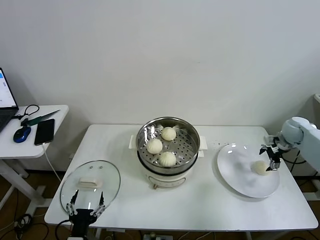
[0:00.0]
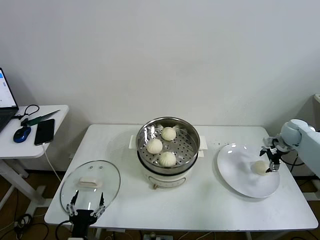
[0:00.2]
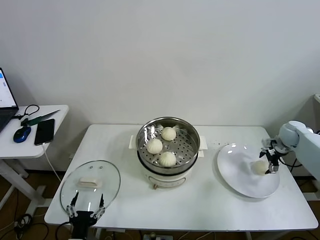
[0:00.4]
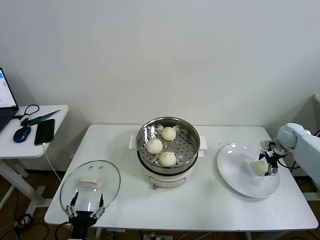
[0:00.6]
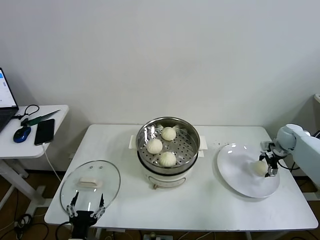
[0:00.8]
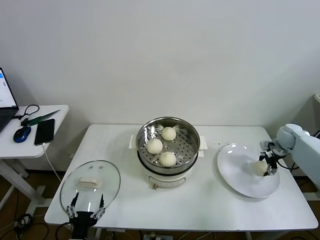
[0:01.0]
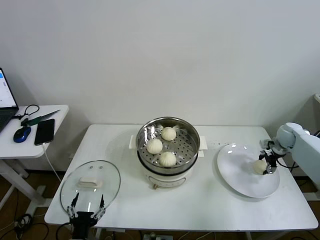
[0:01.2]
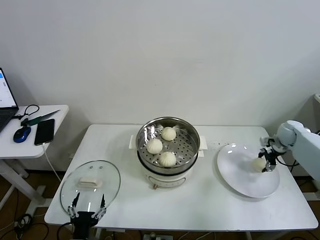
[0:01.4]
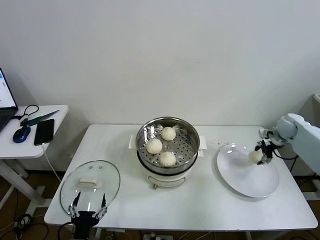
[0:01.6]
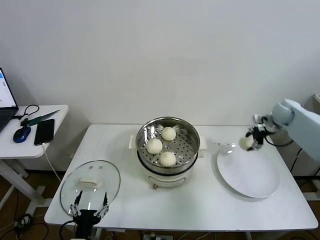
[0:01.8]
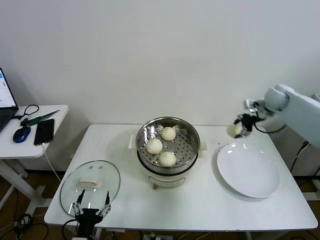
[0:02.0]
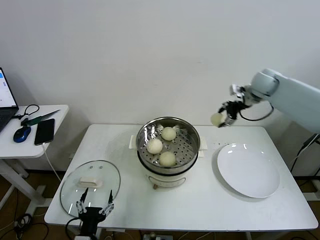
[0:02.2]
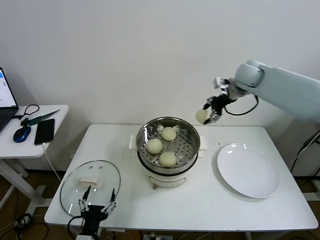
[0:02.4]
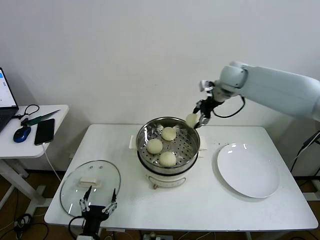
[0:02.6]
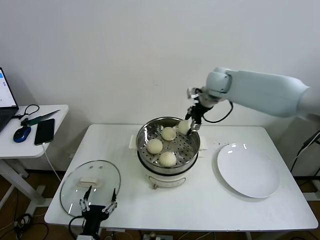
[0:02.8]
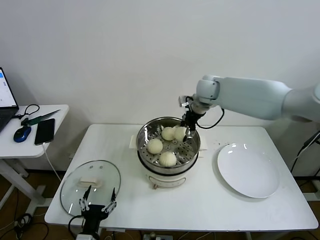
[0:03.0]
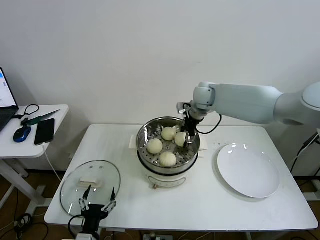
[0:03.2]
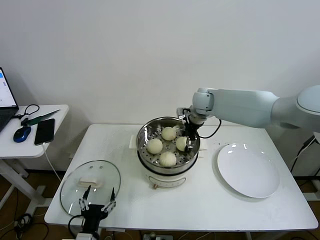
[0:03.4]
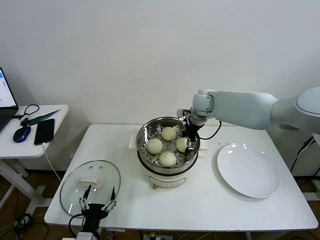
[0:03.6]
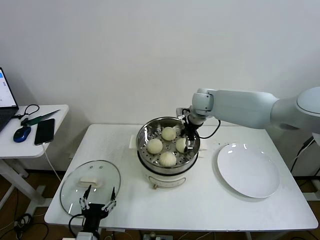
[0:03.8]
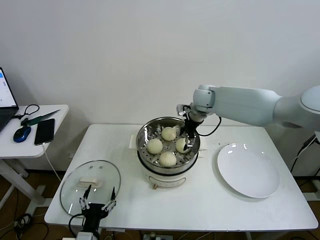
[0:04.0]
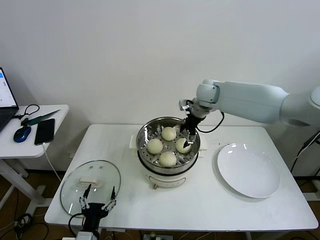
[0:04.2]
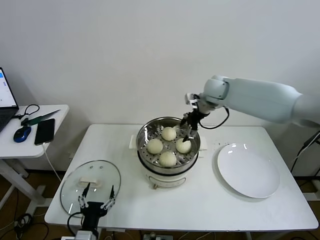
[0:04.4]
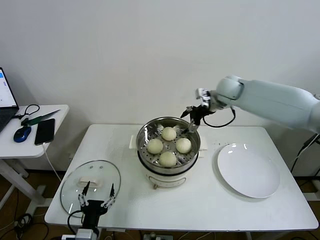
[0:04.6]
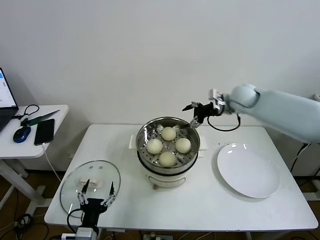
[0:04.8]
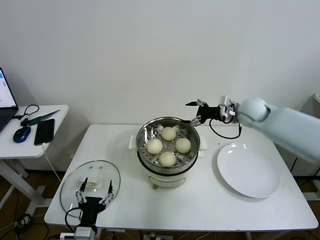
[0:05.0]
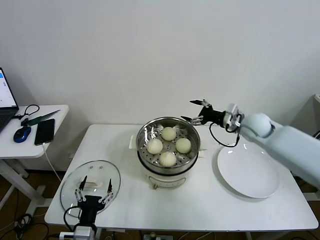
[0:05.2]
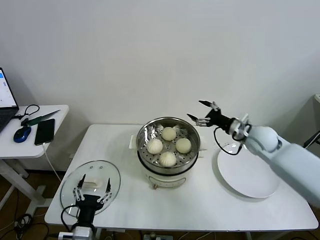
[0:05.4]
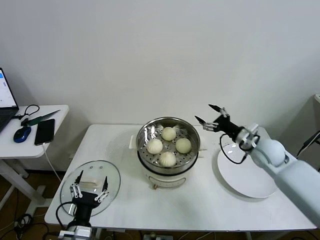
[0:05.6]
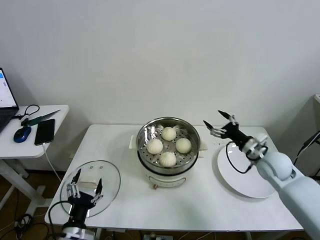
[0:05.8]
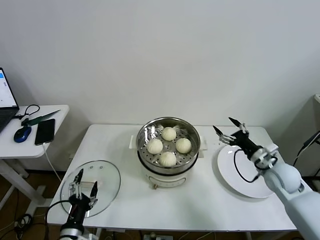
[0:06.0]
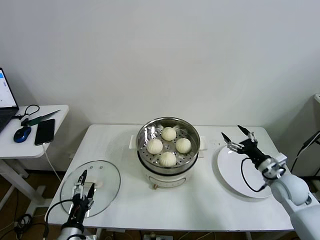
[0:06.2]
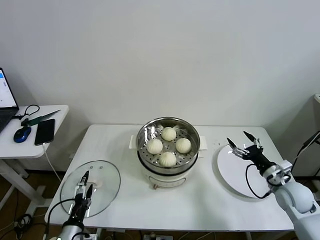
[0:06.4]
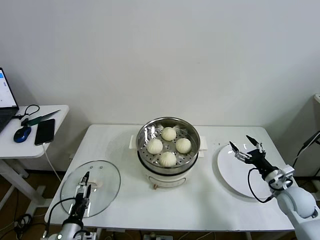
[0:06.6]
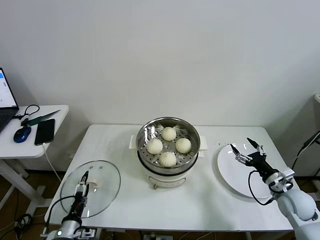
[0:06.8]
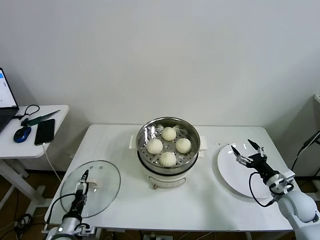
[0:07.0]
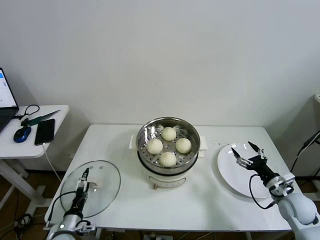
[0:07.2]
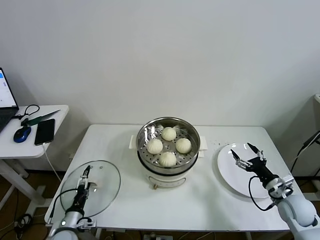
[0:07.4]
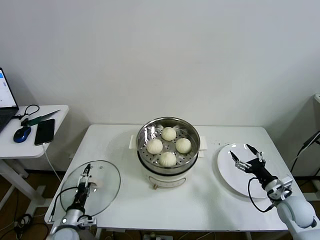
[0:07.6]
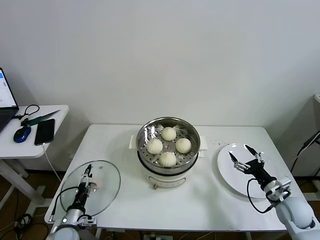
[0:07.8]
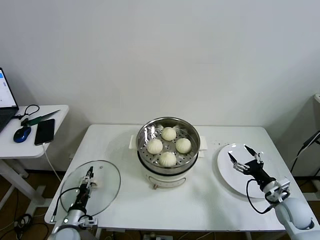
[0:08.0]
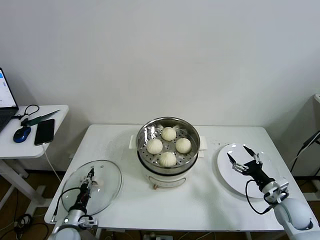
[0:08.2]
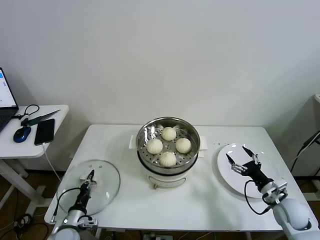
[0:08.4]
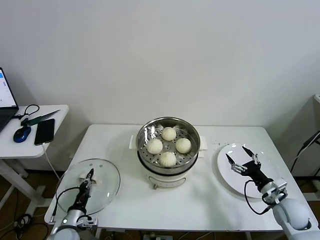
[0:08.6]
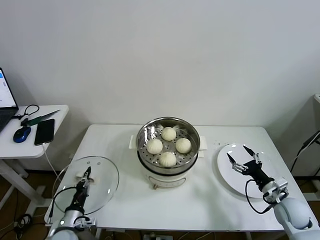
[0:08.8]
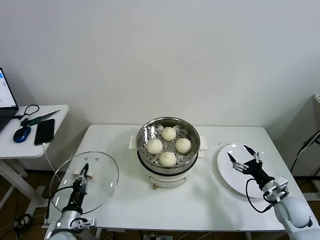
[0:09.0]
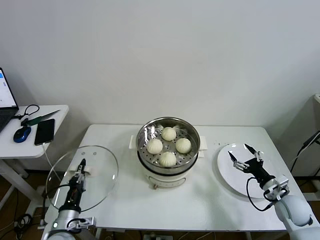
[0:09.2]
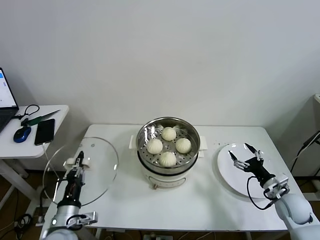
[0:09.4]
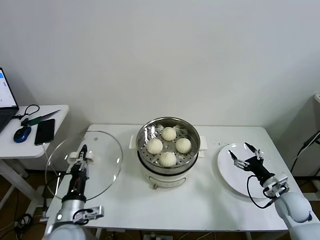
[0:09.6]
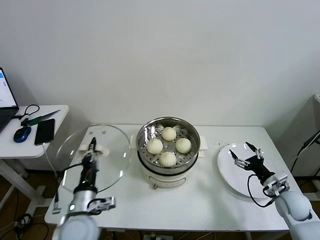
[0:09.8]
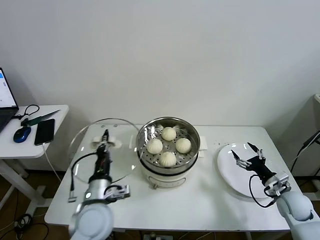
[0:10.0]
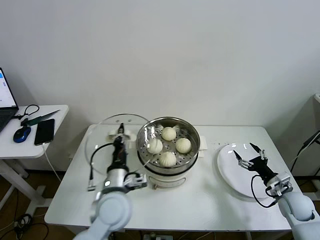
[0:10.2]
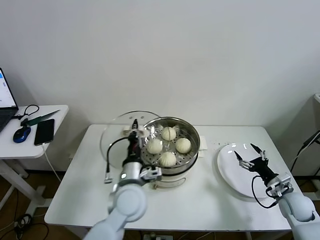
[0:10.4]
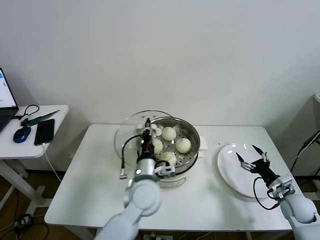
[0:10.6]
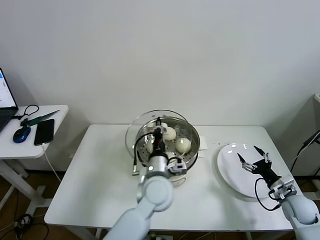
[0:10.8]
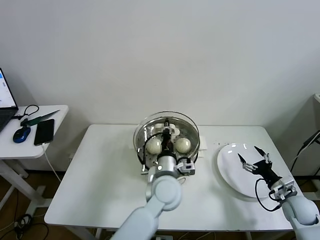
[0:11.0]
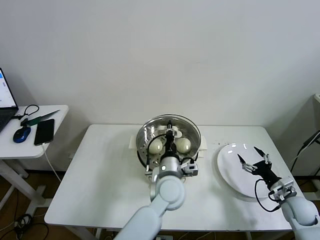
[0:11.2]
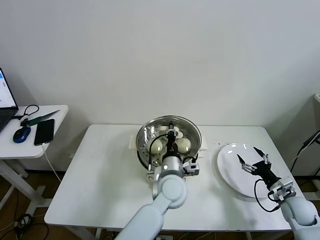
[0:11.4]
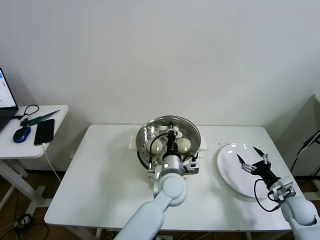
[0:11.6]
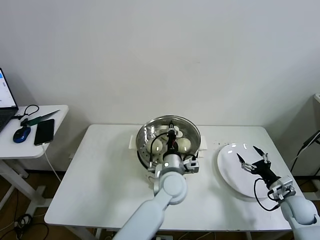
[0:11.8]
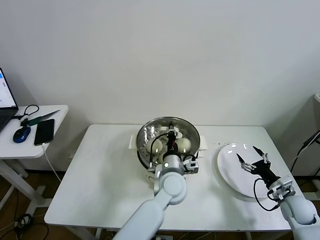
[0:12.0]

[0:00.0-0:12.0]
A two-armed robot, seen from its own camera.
Task of the whole recording: take steamed baozi put them in steamer then cover it.
Step, 0:01.2 to 0:03.8: Place the baozi on the steamer with right gripper.
Step, 0:04.0 to 0:08.4: Grasp the pot lid with left gripper.
0:00.0 to 0:01.6: The right gripper closes its fingers.
0:01.6 to 0:03.0: The right gripper is displaced to the left by some 35 cm.
0:03.0 to 0:04.4: The right gripper opens.
0:04.4 to 0:06.0: The right gripper is displaced backward, downward and to the right by roughly 35 cm.
0:06.0 to 0:07.6: The left gripper travels downward, forward and to the left by some 15 cm. Meanwhile the right gripper goes roughly 10 cm downward and backward.
0:07.6 to 0:09.0: The left gripper ends up approximately 5 cm from where it was, and closes its fingers.
0:09.0 to 0:10.4: The left gripper shifts roughly 25 cm to the right and upward.
0:10.4 to 0:12.0: The left gripper travels to the right and forward by some 15 cm.

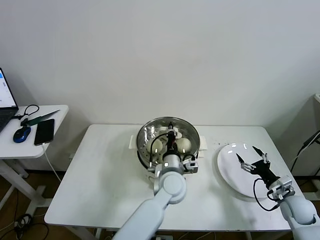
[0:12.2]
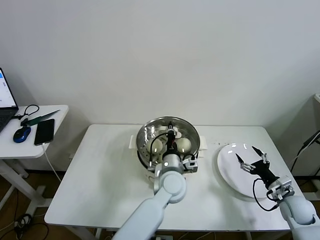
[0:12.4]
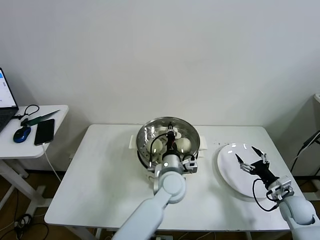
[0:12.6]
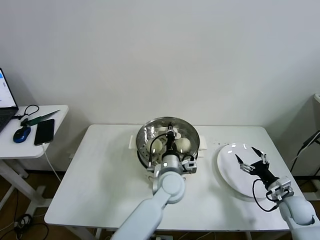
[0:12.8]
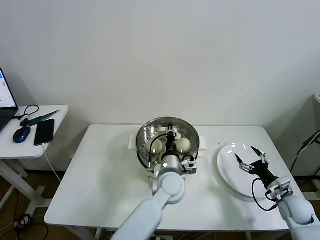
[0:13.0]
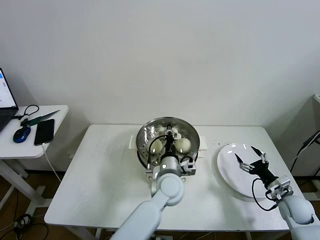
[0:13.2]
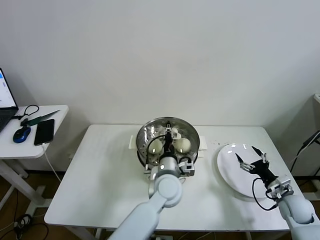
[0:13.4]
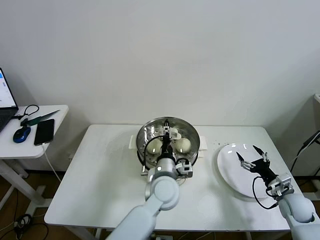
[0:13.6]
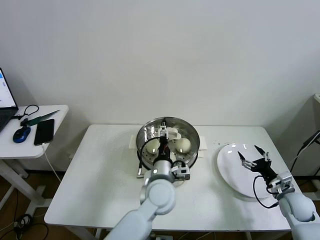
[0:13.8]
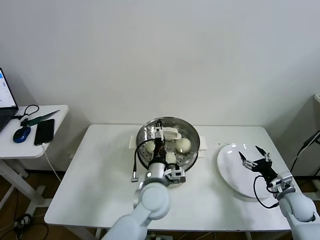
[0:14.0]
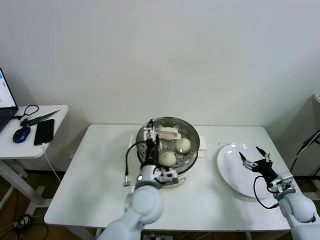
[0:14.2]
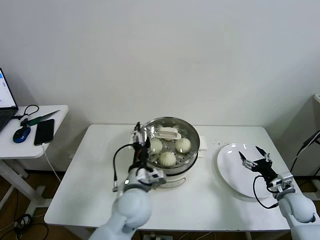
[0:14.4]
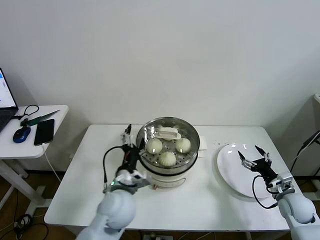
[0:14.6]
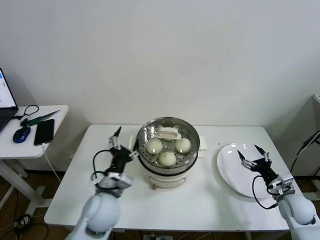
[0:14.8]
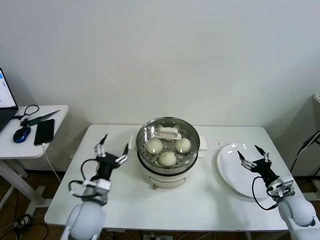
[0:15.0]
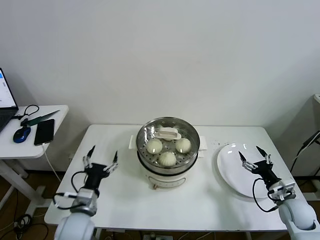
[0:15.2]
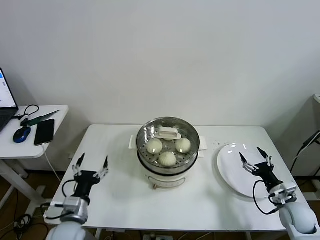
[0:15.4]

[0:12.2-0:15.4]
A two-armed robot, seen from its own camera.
Task of the whole recording: take steamed baozi put them in steamer then cover it.
0:12.2 to 0:13.8: The left gripper opens its fingers.
0:13.8 to 0:15.4: The left gripper goes some 25 cm to the left.
